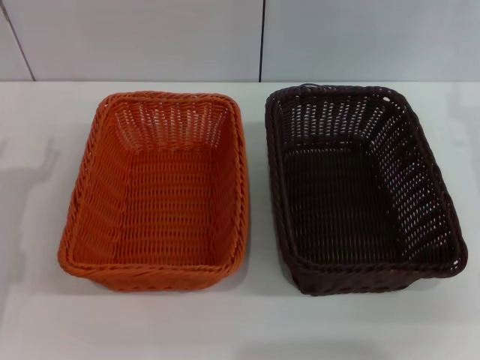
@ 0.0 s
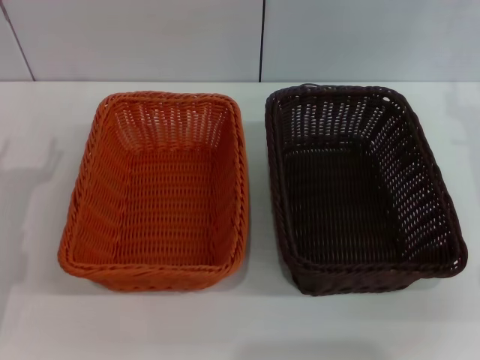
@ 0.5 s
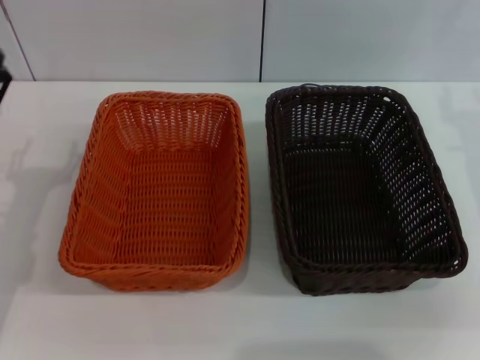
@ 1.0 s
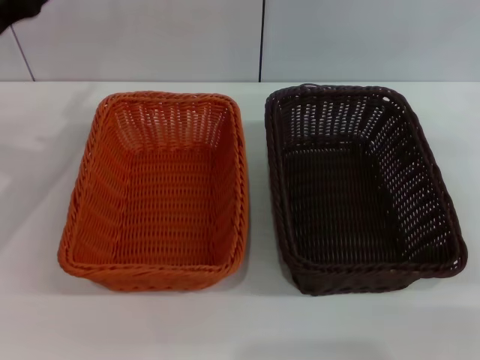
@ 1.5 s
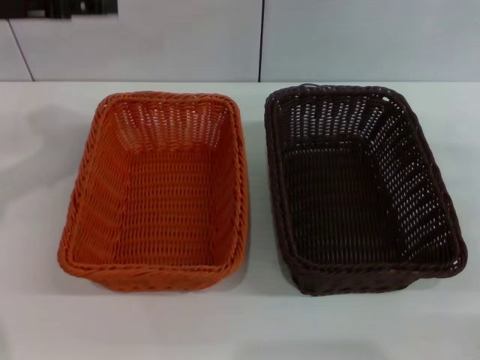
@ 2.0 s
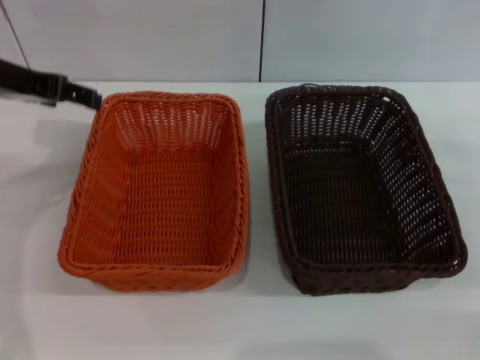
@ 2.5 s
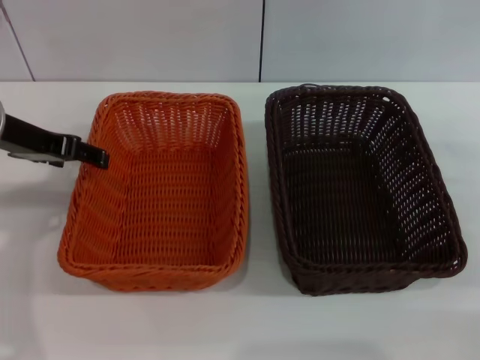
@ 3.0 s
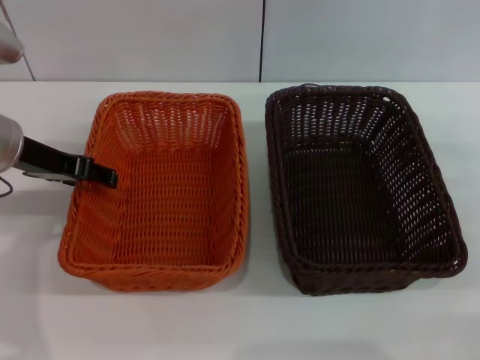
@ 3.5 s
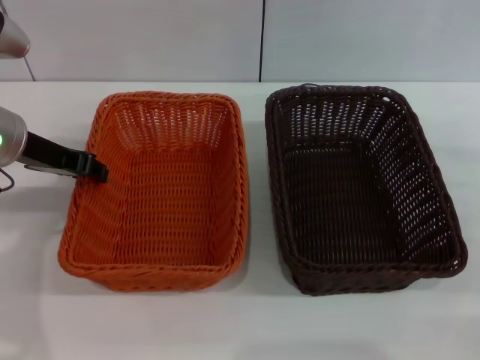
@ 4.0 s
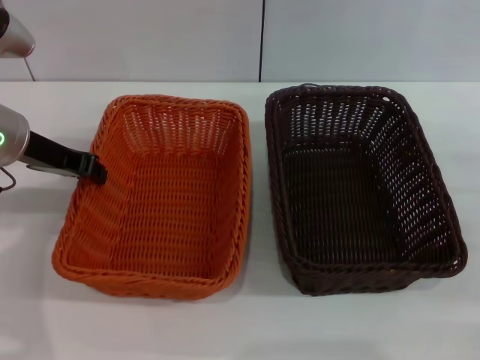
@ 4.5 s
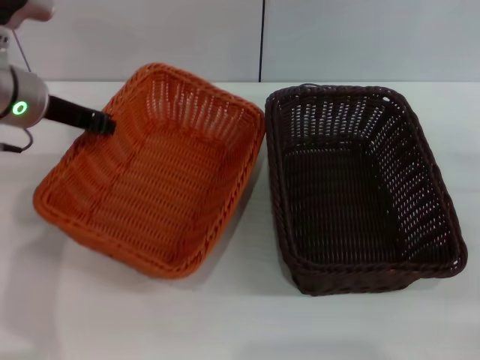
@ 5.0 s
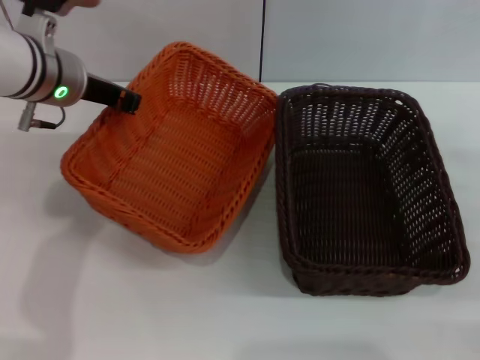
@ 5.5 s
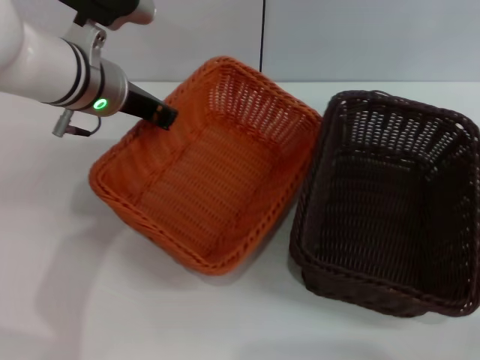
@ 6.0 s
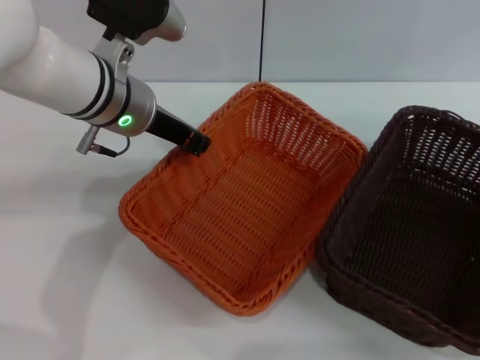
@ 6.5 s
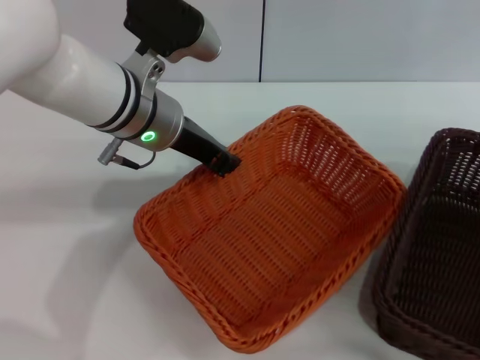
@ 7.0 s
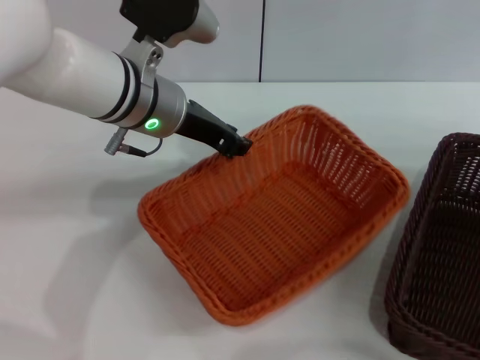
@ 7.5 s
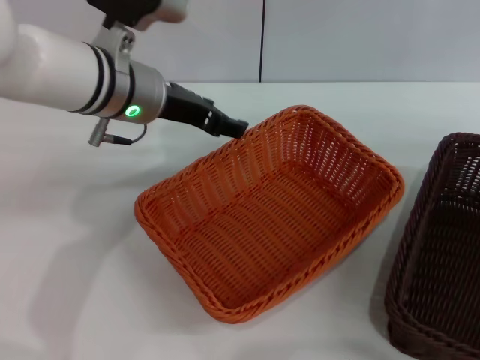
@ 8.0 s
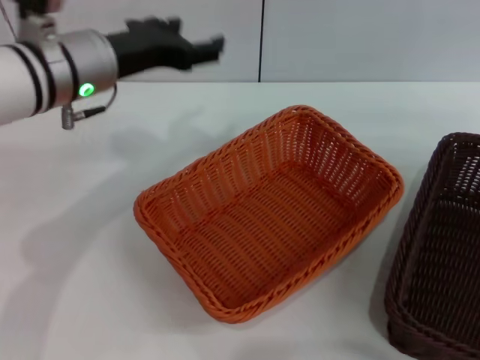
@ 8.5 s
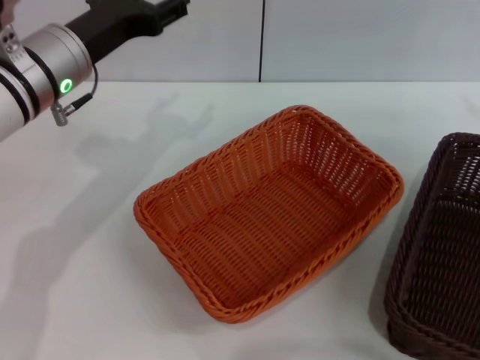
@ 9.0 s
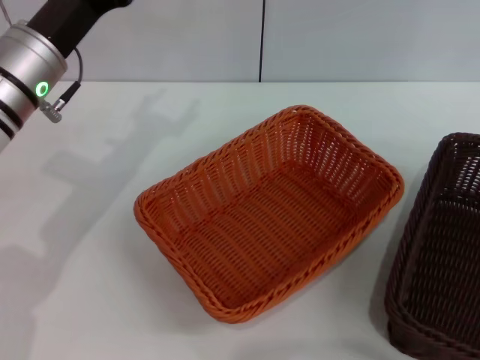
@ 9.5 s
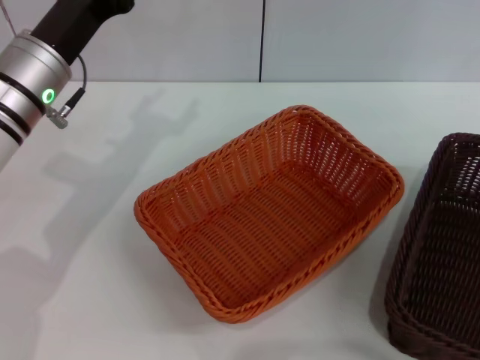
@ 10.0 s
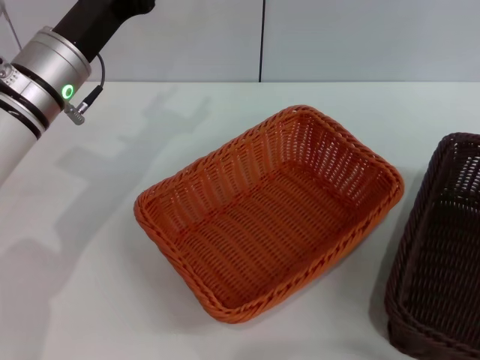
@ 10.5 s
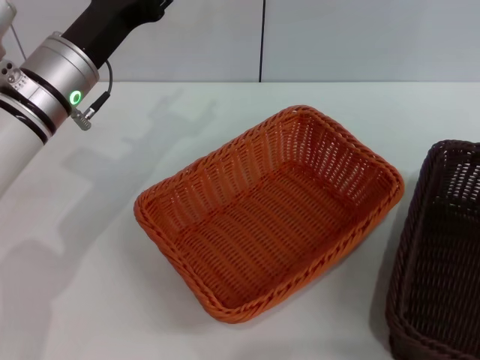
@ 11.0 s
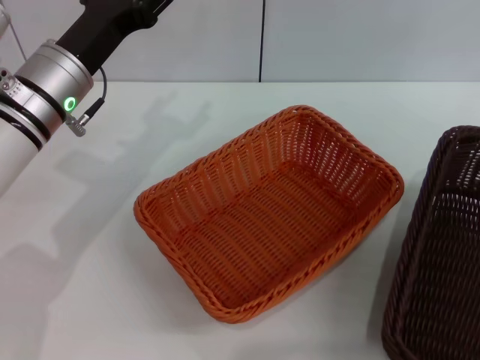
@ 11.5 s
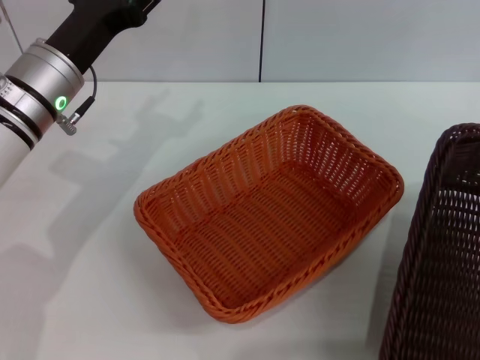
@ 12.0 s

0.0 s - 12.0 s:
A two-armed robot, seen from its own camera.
Step, 0.0 s - 5.0 s: Pick up the light basket with the left gripper.
Step, 5.5 s - 7.5 s: Place the light basket in the center of view with the left gripper.
0.0 s - 2.0 s: The right gripper travels to the right by about 5 cm, while the left gripper goes some 20 cm upward and forward.
2.0 s - 4.0 s: The left gripper goes some 10 cm downward, and closes up.
4.0 s - 6.0 s: The left gripper shifts approximately 10 cm to the right, and closes its fingers.
6.0 s - 8.0 s: The left gripper opens up.
8.0 s - 10.0 s: The right gripper travels upward by about 10 cm. Meanwhile the left gripper shifts about 10 cm to the left.
10.0 s - 12.0 s: The right gripper closes its fingers.

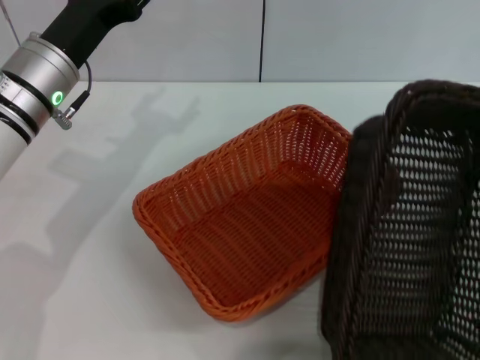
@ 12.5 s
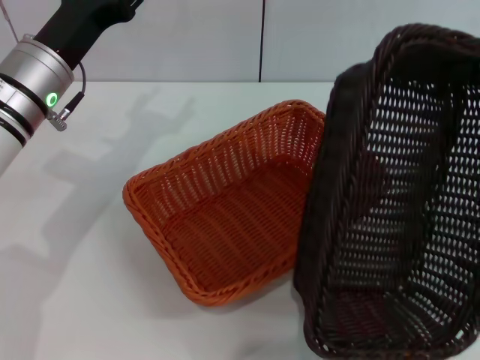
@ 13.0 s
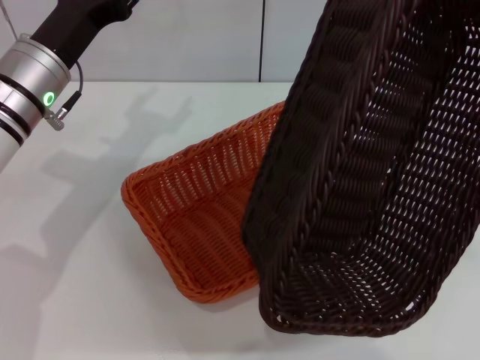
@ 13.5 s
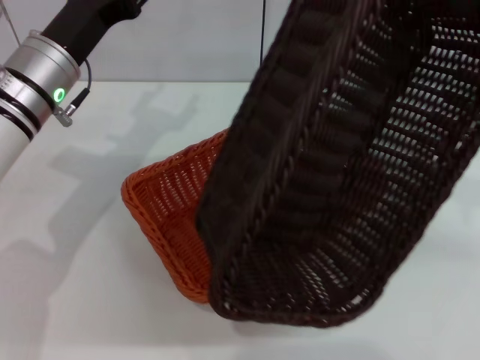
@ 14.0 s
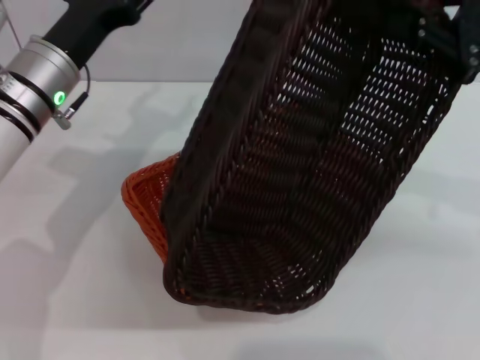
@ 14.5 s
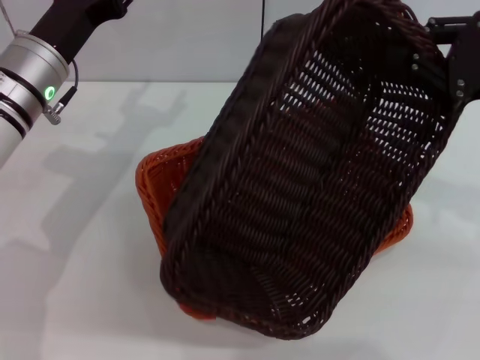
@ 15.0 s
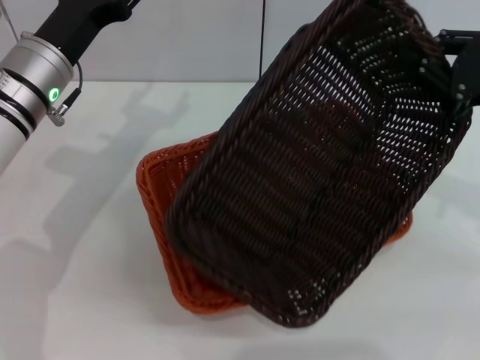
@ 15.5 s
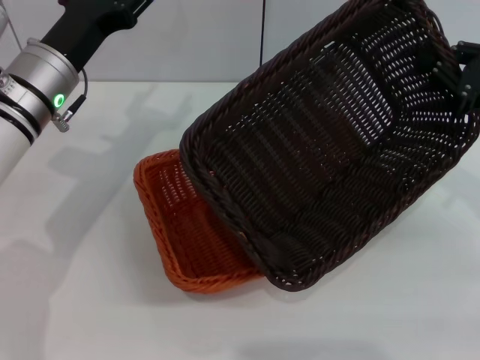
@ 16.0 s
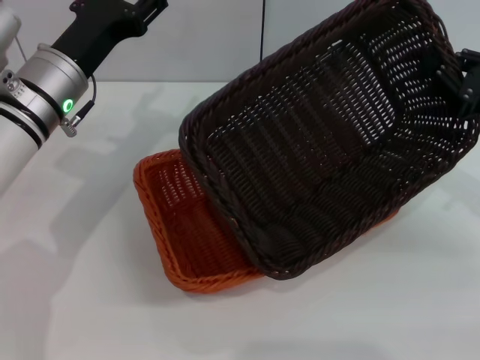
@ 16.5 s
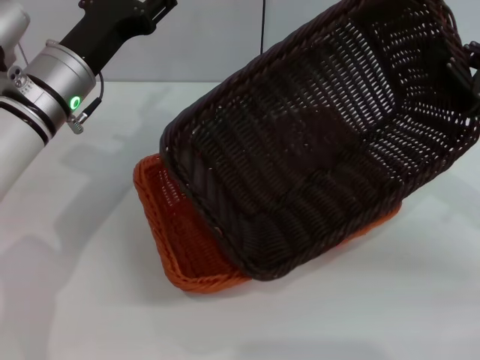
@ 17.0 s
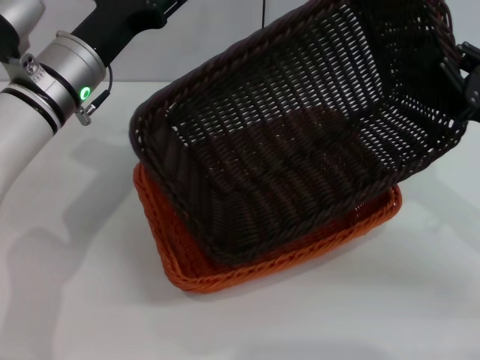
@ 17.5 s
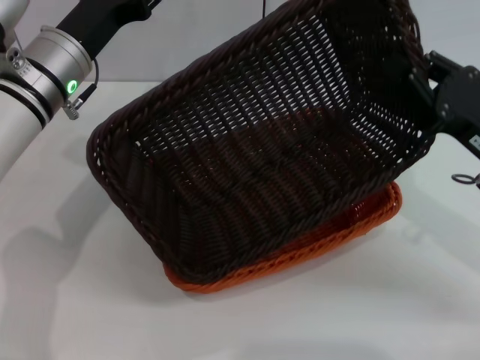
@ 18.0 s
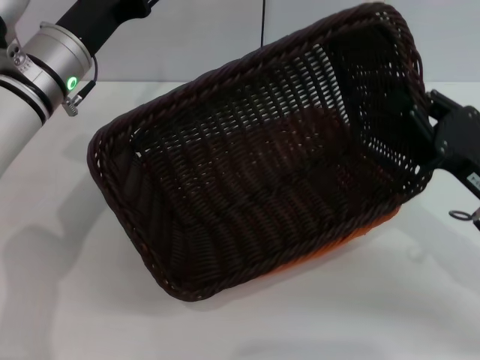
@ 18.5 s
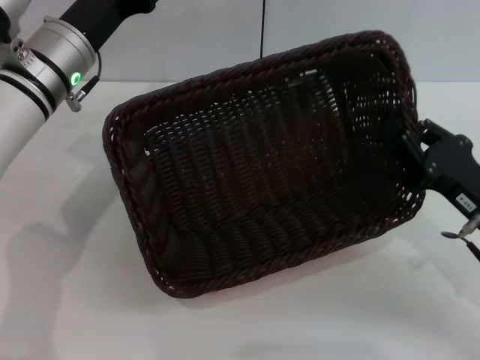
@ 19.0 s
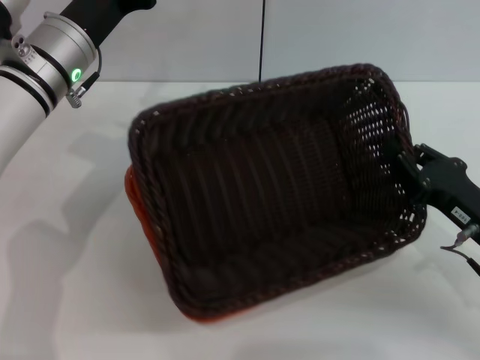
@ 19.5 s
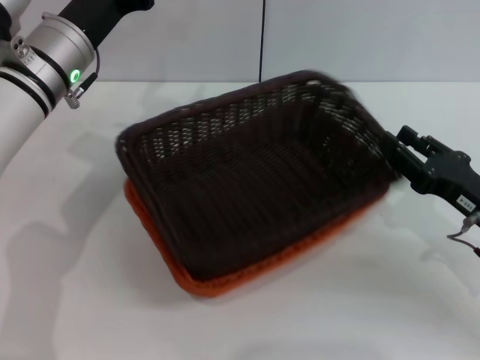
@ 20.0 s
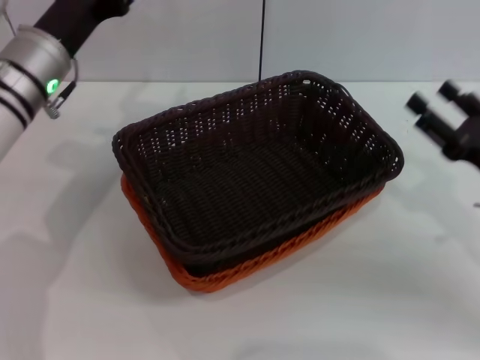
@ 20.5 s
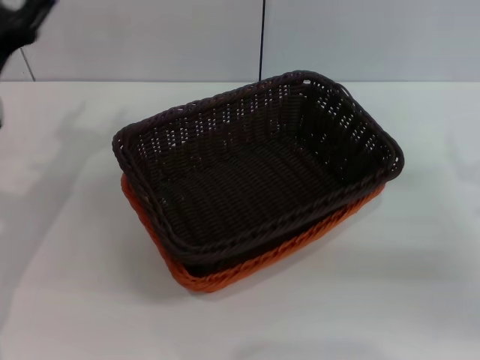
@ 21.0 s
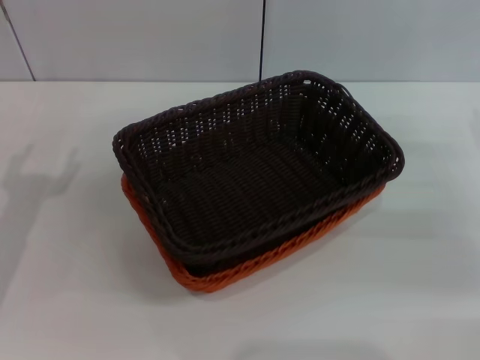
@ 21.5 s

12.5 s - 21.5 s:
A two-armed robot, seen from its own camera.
Step, 12.5 s - 20.0 s: Place the dark basket on the light basket with the right gripper.
12.5 s - 14.5 s: The right gripper heads to the left, covering roughly 5 cm.
14.5 s - 17.0 s: The right gripper moves downward, about 10 cm.
17.0 s - 19.5 s: The right gripper goes about 10 cm downward and backward.
19.5 s - 21.5 s: The right gripper travels forward and to the right by approximately 10 cm, and opens up. Meanwhile the left gripper travels backward, to the left and downward by approximately 20 cm.
